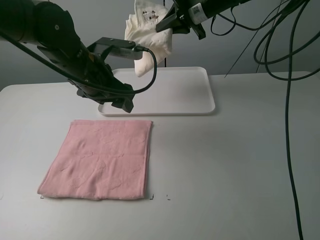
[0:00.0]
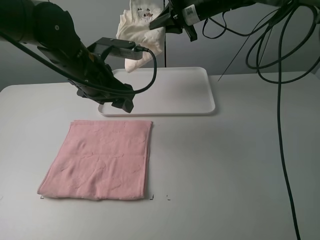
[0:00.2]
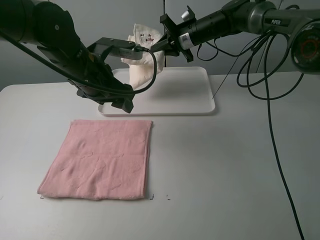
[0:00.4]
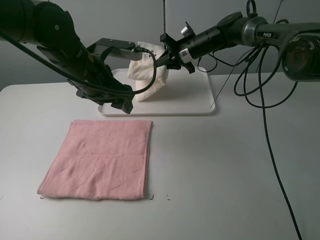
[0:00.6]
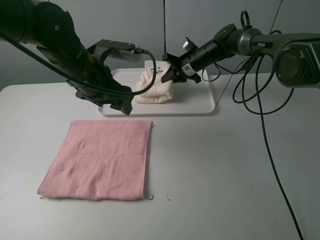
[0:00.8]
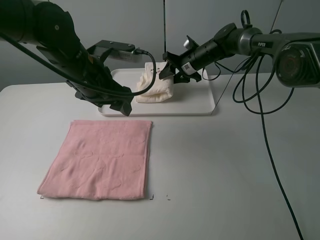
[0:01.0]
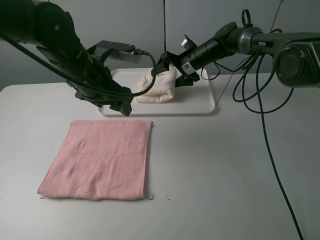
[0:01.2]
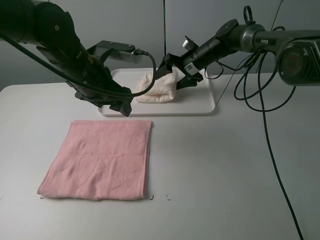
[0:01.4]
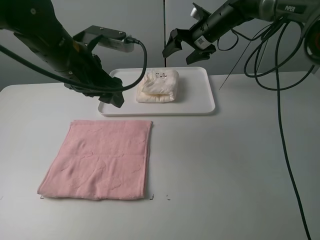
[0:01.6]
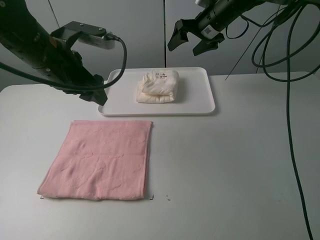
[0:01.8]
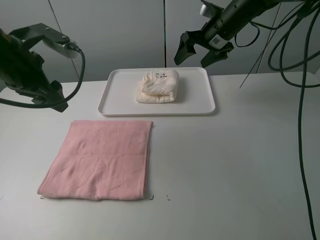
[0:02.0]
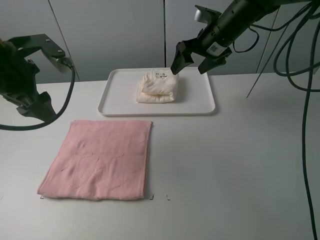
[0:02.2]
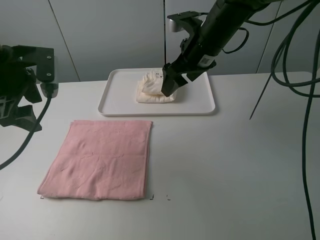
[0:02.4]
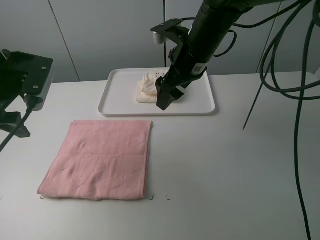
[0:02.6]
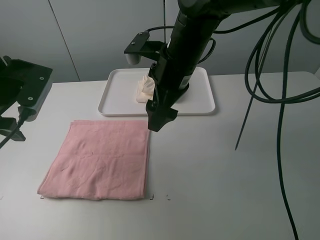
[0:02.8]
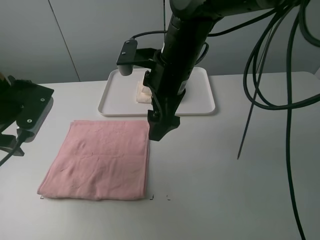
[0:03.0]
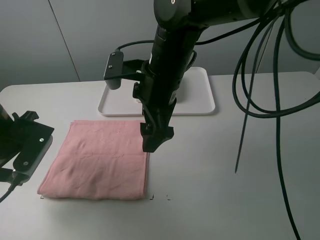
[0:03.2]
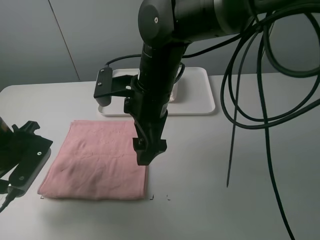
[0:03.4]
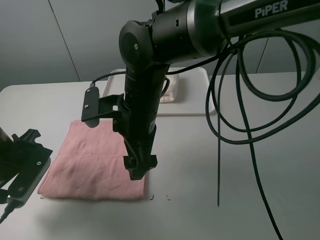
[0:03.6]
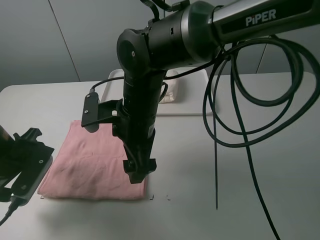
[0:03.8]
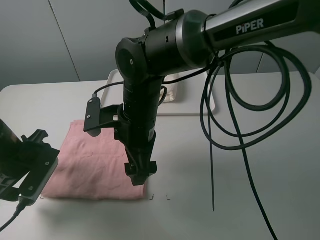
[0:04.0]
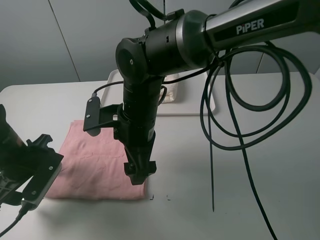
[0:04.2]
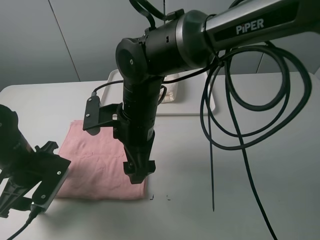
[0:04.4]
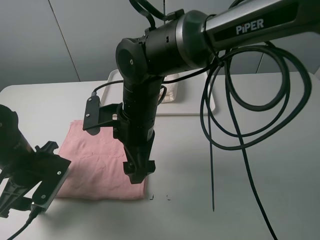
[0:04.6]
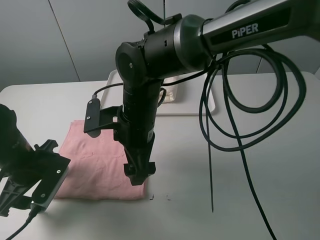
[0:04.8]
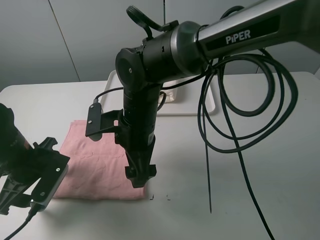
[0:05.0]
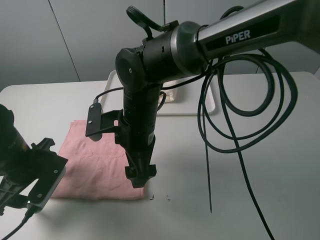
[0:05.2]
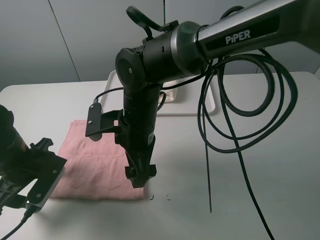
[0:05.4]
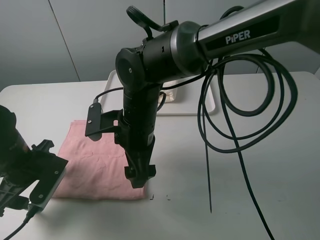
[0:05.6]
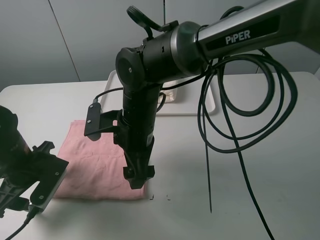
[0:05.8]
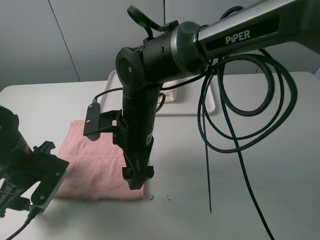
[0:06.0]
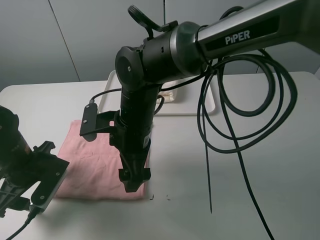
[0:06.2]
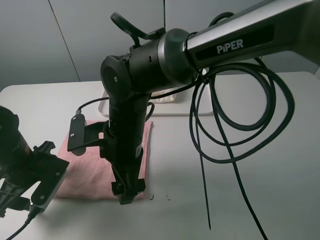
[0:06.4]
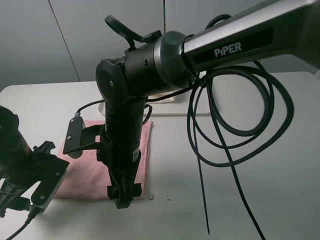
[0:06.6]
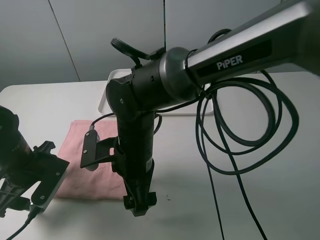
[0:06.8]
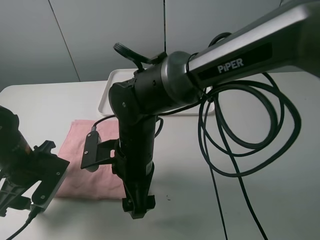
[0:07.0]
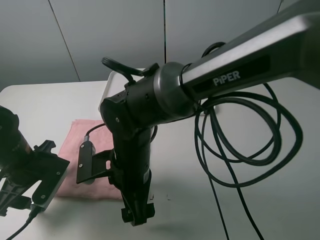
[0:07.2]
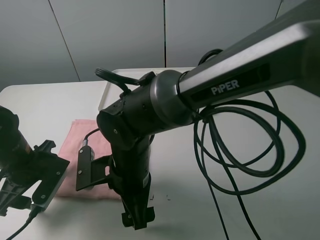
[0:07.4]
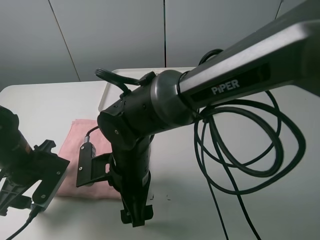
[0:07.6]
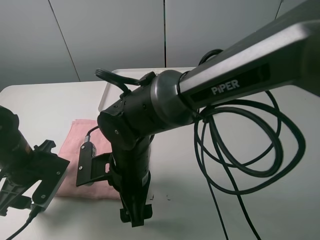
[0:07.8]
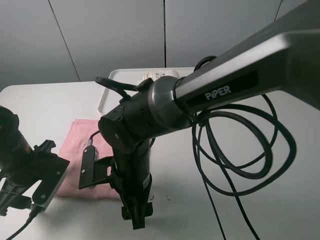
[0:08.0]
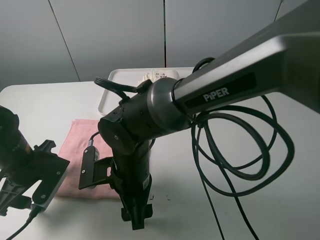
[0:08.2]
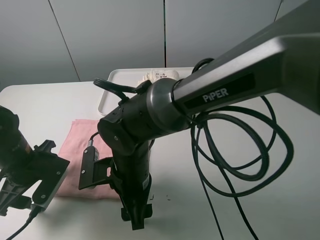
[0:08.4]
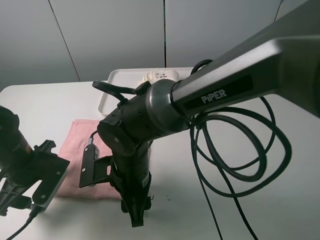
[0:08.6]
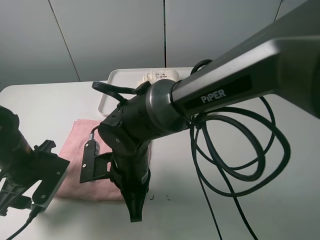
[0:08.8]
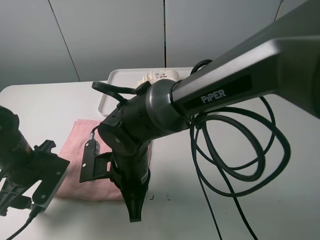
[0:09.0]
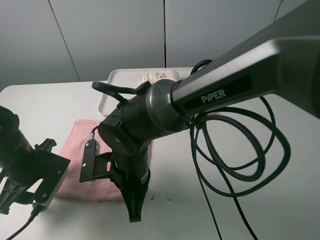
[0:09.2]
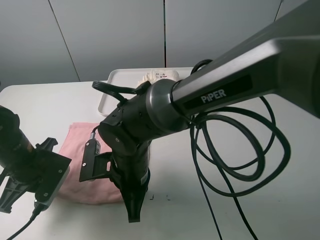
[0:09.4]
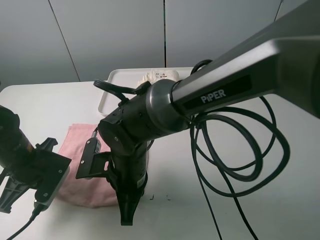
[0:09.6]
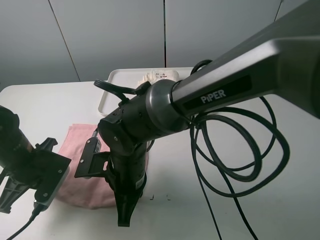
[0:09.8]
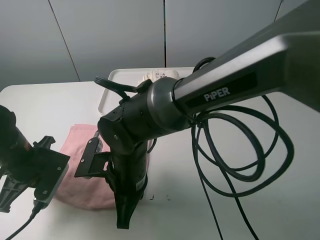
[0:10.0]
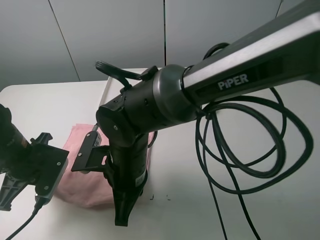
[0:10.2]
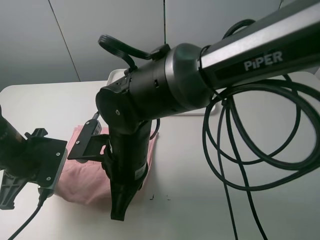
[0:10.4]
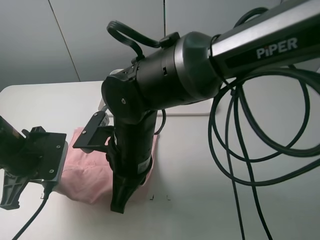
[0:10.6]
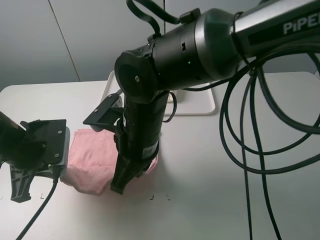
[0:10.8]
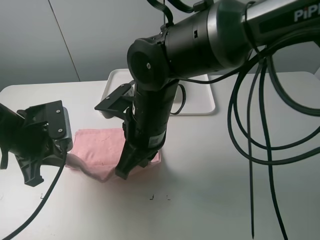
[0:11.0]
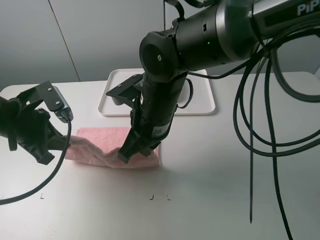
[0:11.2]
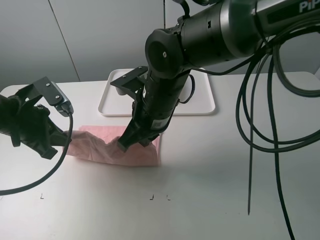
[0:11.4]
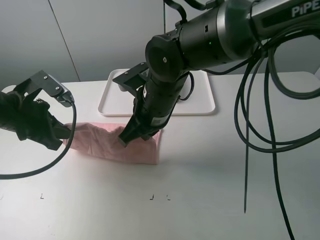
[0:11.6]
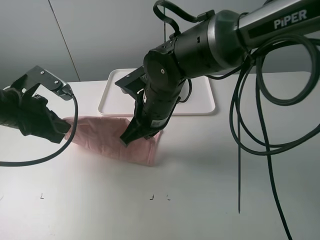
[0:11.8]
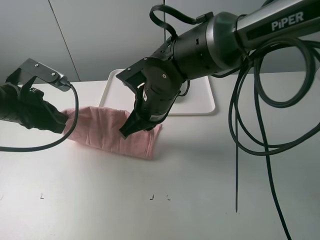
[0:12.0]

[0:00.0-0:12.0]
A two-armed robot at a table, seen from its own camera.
Task of the whole recording: fold one of the towels by two grippers and place it on the tray,then fold another towel by two grippers and place it on the folded towel.
Step, 0:01.4 to 0:07.2: Grasp the pink towel with the left gripper.
0:00.0 to 0:01.6: The right gripper goes some 5 cm downward, and opens its fingers.
0:01.6 to 0:03.0: The left gripper moves to the left, about 10 cm. The right gripper travels backward and to the left by some 25 cm.
0:03.0 to 0:04.4: The left gripper is displaced downward by approximately 10 cm. Meanwhile the right gripper travels downward and to the left by about 10 cm.
0:06.0 to 0:07.6: The right gripper shifts some 5 cm backward.
0:07.6 to 0:09.0: The right gripper closes up.
0:09.0 to 0:10.4: The right gripper goes roughly 5 cm upward; the left gripper closes up.
0:10.4 to 0:12.0: The right gripper goes approximately 10 cm forward. Meanwhile the left gripper is displaced forward by approximately 5 cm, and opens up.

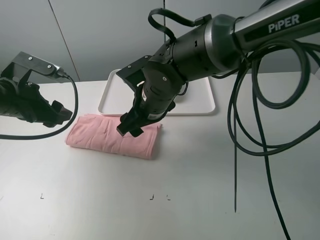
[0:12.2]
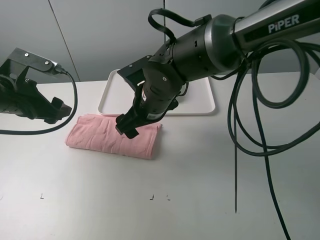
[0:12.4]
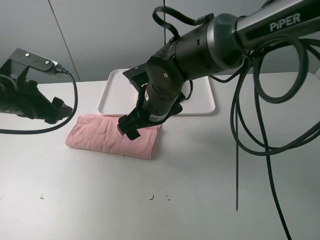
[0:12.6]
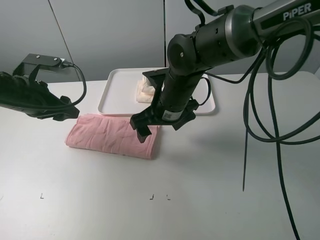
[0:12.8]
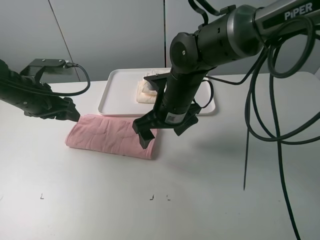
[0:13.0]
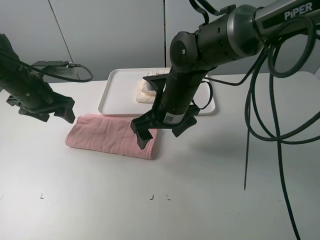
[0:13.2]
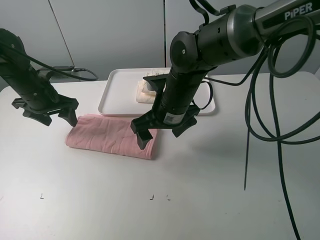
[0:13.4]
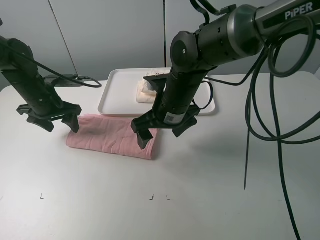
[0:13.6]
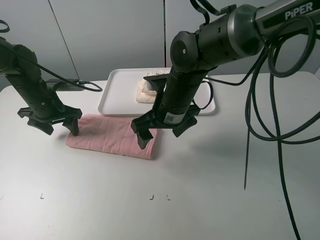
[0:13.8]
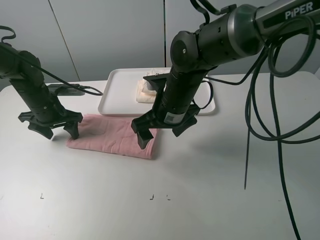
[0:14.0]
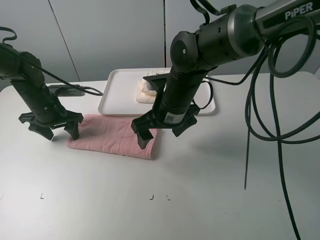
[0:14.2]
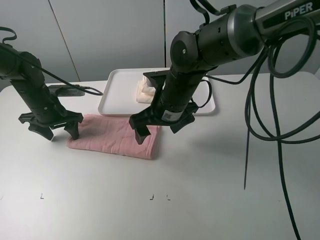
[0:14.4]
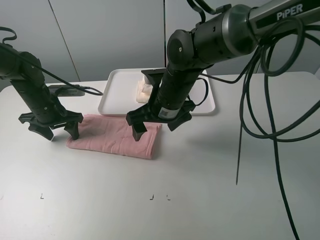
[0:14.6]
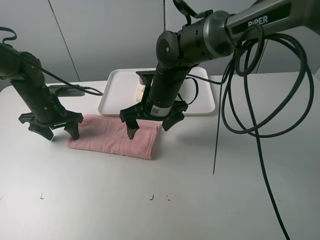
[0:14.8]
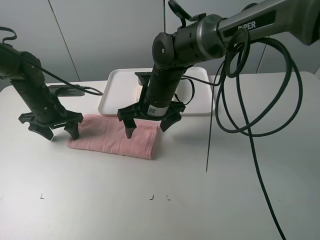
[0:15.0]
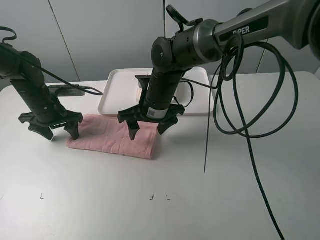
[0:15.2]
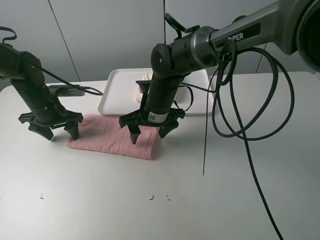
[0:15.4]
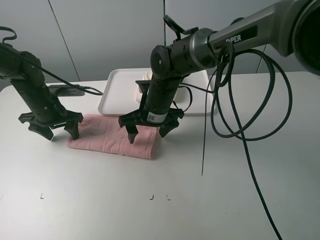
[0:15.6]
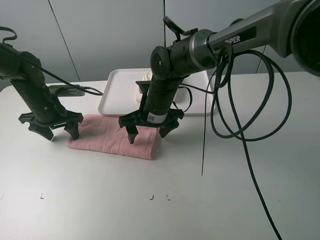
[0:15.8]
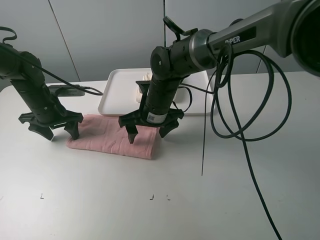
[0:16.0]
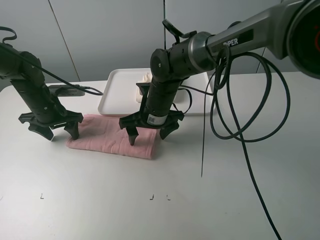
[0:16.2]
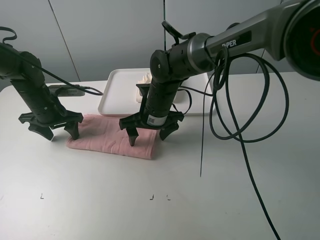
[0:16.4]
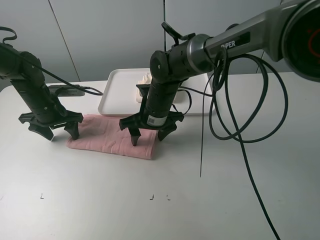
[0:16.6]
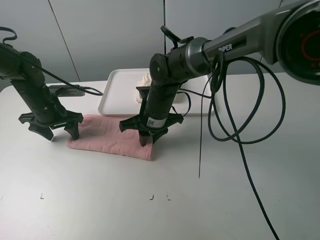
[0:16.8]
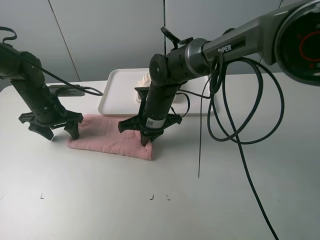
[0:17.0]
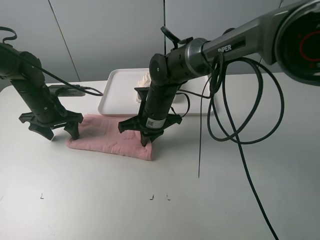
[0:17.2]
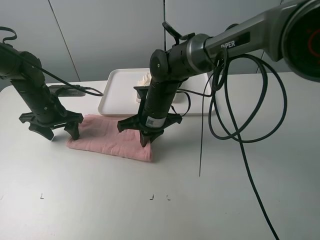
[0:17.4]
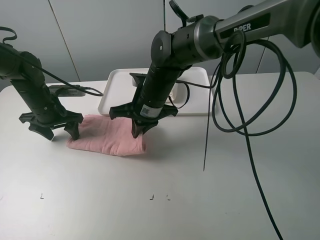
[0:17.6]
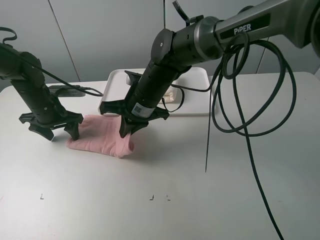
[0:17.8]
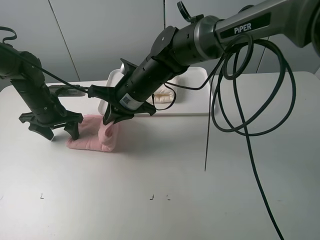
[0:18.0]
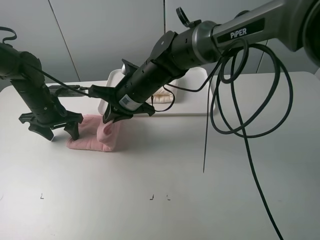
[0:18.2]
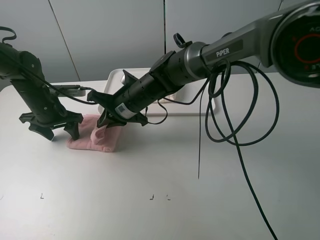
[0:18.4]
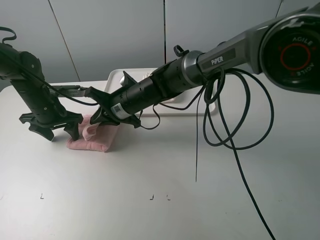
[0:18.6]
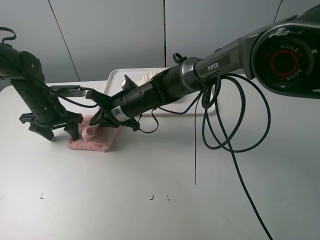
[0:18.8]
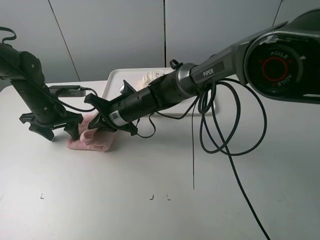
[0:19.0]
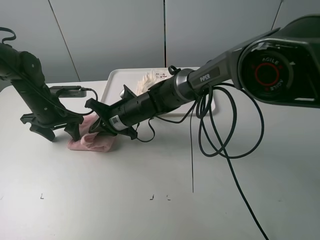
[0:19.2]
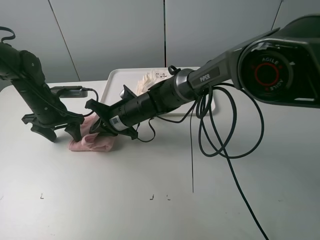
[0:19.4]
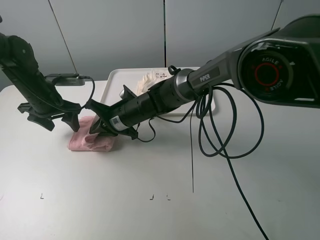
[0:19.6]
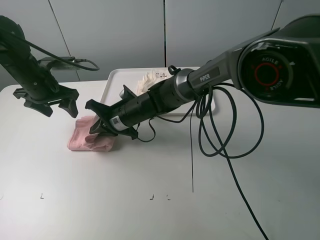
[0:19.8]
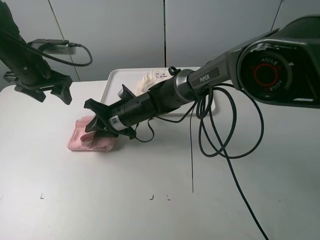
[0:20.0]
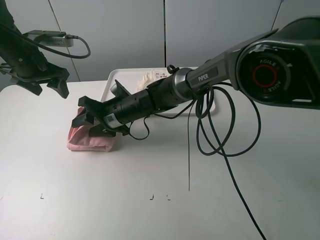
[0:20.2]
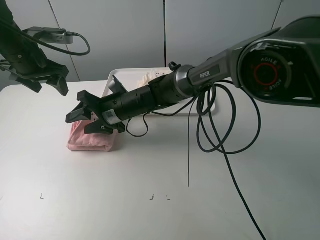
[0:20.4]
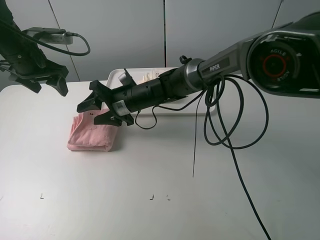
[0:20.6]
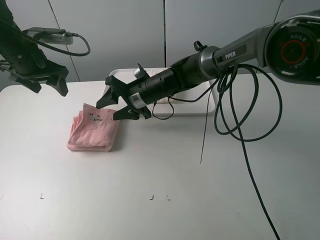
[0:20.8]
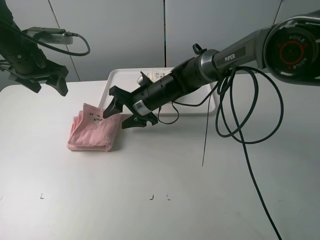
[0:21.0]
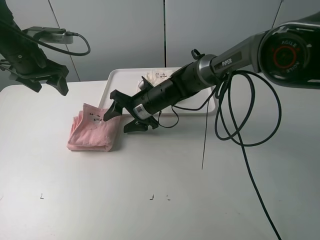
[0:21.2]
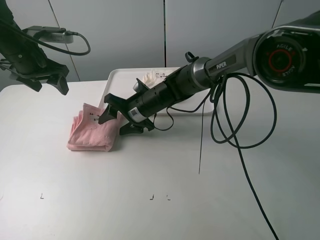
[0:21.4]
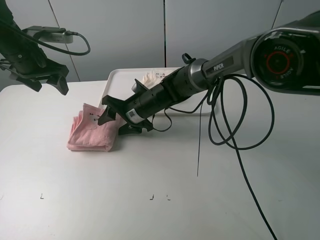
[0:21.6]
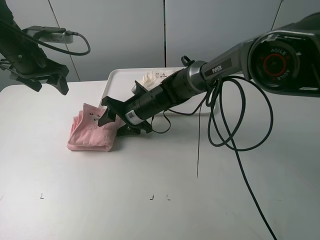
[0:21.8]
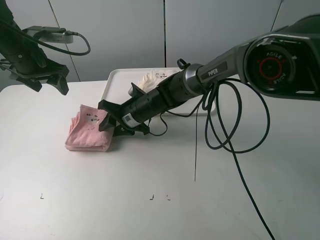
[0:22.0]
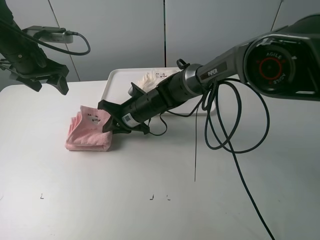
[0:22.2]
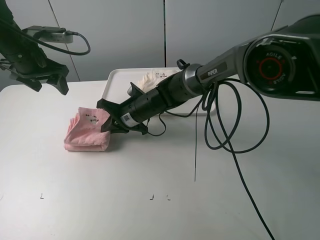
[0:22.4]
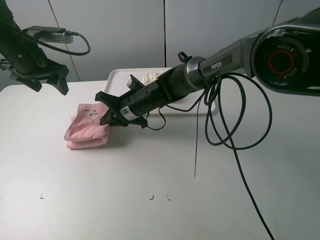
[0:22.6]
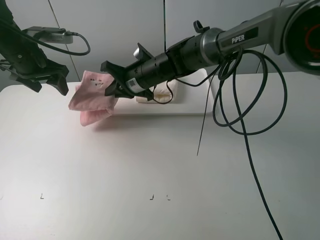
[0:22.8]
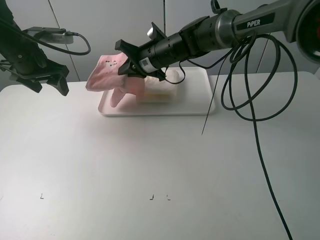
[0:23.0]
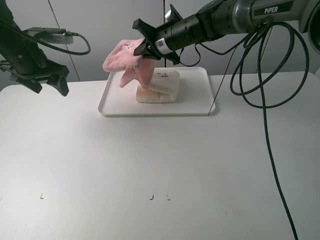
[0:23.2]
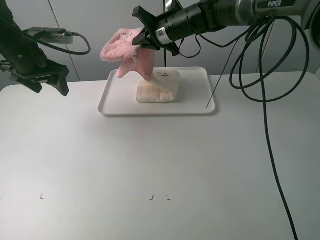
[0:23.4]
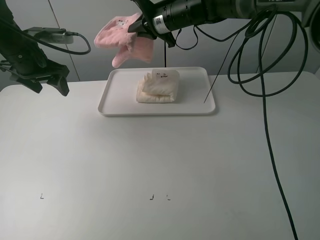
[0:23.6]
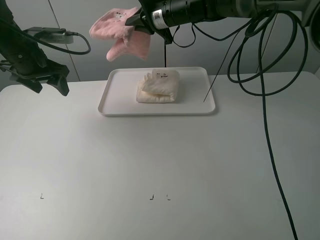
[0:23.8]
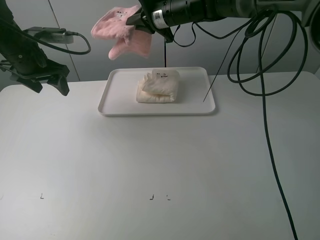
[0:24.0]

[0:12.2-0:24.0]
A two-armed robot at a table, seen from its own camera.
Task of the whole recording: fold one of the towels by two grippers and place it on the tray,then fold another towel by two grippers and place it on the folded towel.
Step, 0:13.2 to 0:14.2: Press the pink towel with the left gripper.
Step, 0:14.4 to 0:17.0: Grasp the pink towel with the right gripper.
Step, 0:17.2 to 0:20.4: Fold the pink towel from right to left with right gripper.
Step, 0:20.6 to 0:22.2: Grasp the pink towel with the right gripper.
0:12.2 to 0:13.6: The left gripper travels forward and downward by some 10 cm.
0:13.6 to 0:15.2: The right gripper moves some 5 cm.
0:15.2 to 0:16.6: The grippers move only a little.
0:16.6 to 0:18.2: The right gripper shifts by about 5 cm, and closes.
0:18.2 to 0:19.6: The right gripper travels downward by approximately 5 cm.
0:19.6 to 0:21.0: The right gripper shifts approximately 5 cm to the right, and opens up. The left gripper goes about 10 cm upward.
0:21.0 to 0:22.6: The right gripper closes.
0:22.6 to 0:24.0: The right gripper travels upward, forward and to the right by about 20 cm.
